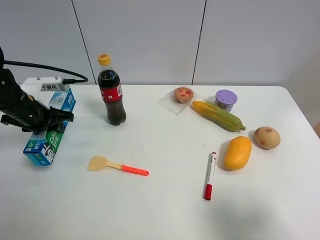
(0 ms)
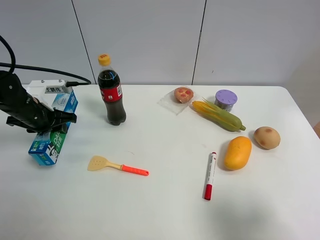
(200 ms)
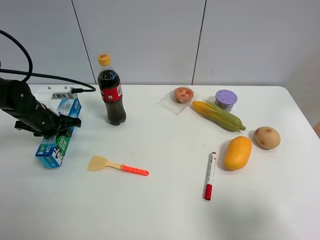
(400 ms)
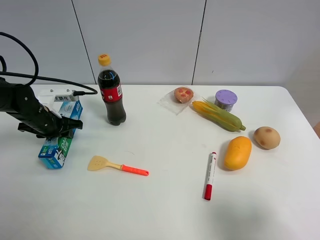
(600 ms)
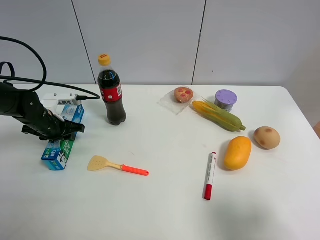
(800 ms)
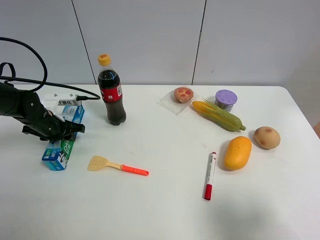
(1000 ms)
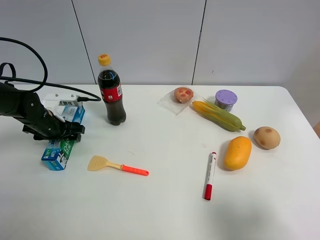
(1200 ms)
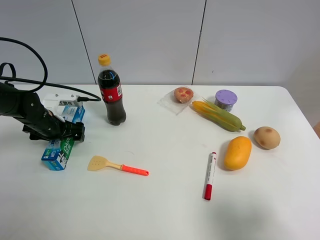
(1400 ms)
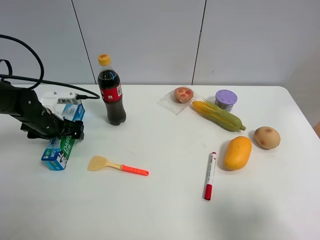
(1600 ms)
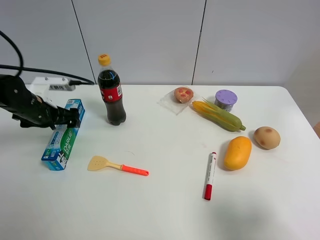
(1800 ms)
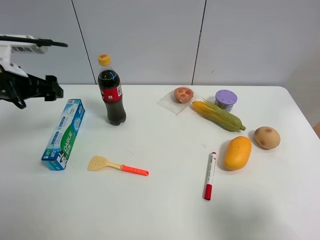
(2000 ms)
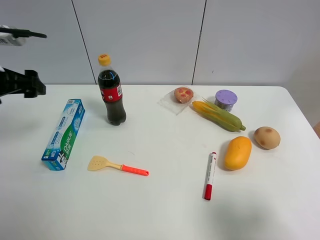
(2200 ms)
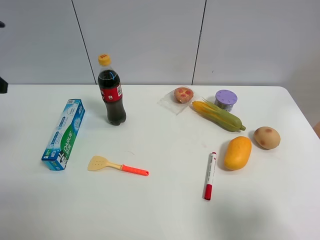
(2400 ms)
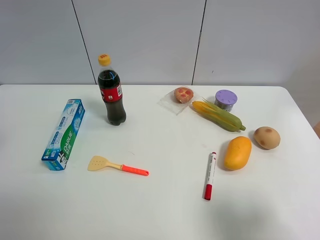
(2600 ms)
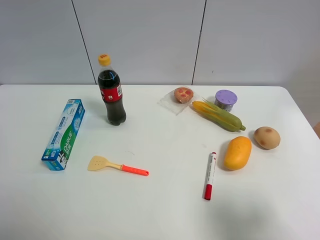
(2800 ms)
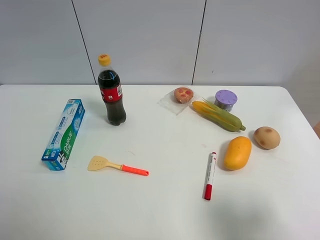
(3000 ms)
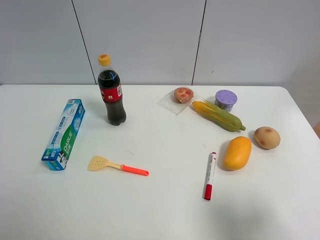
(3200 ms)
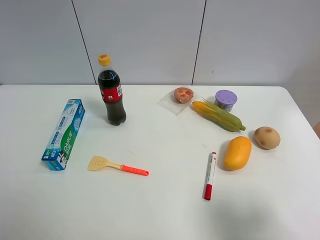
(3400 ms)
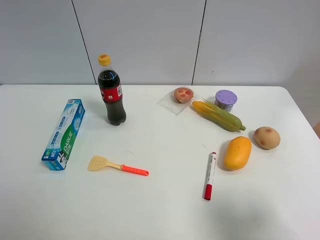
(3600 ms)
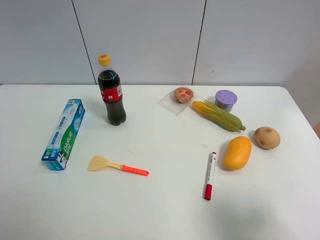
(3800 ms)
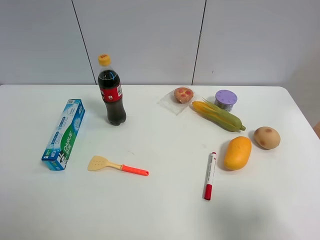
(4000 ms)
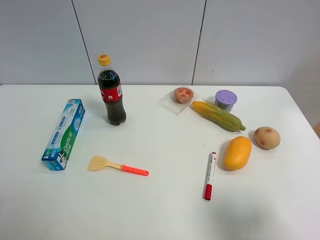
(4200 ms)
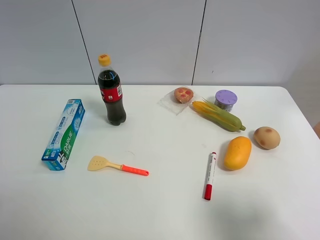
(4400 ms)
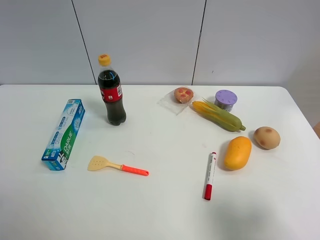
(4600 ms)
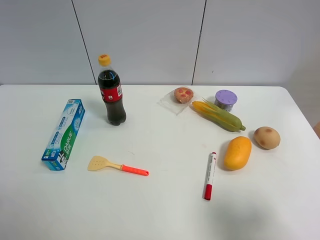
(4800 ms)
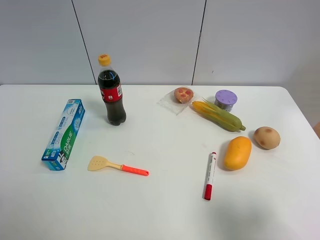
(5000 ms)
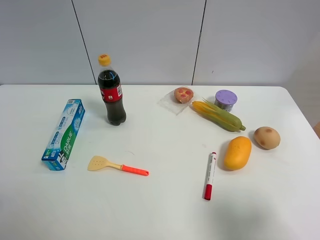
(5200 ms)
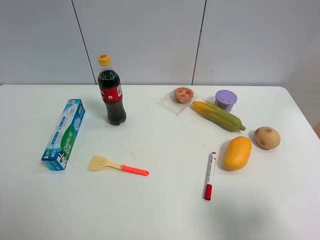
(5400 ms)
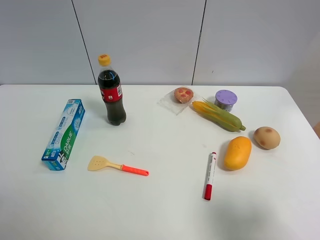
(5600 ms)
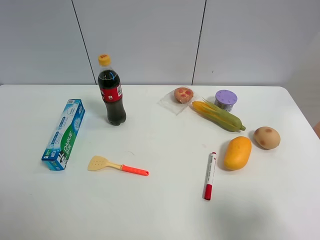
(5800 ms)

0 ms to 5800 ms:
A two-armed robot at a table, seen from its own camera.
Task of the whole recording: the gripper move the object.
0 ms to 1400 ms: The left gripper heads downward, covering approximately 5 cm, and opens up.
1400 ms to 2800 ms: The left gripper is displaced upward and backward by some 35 cm.
4400 ms to 5800 ms: Neither gripper changes place.

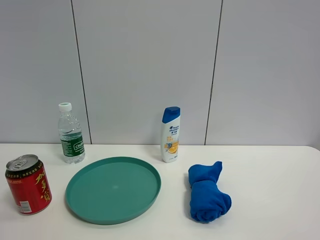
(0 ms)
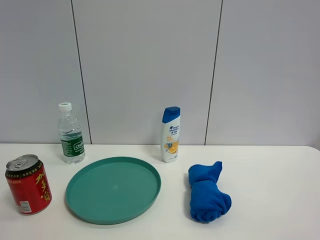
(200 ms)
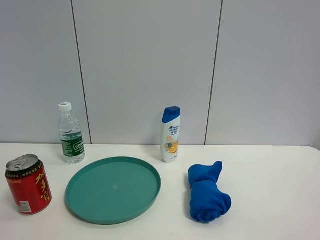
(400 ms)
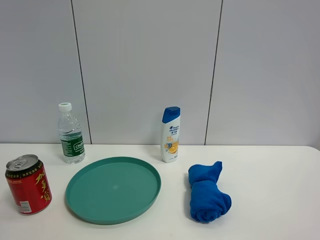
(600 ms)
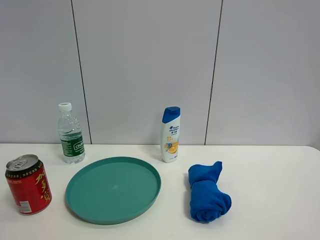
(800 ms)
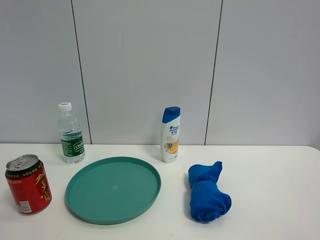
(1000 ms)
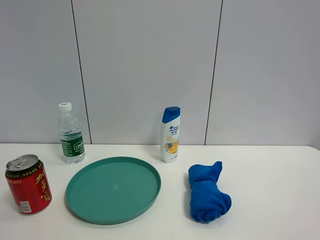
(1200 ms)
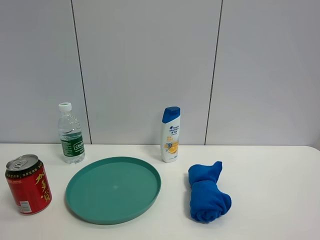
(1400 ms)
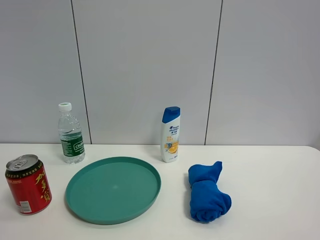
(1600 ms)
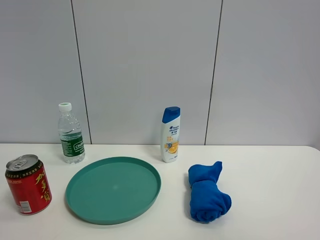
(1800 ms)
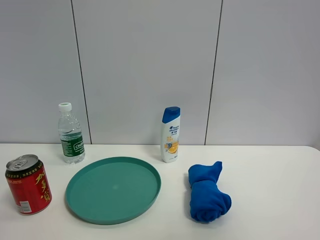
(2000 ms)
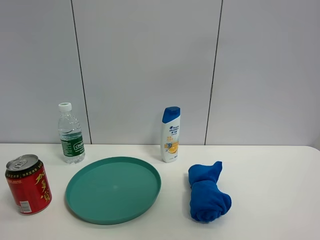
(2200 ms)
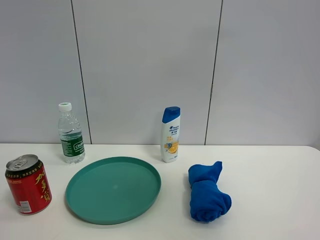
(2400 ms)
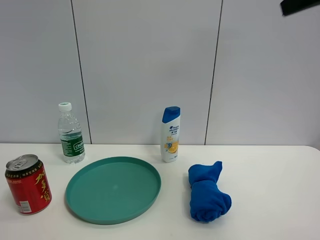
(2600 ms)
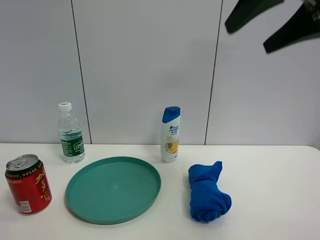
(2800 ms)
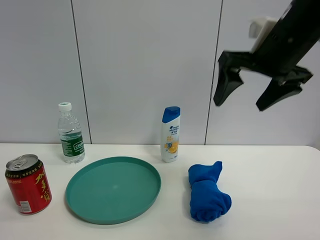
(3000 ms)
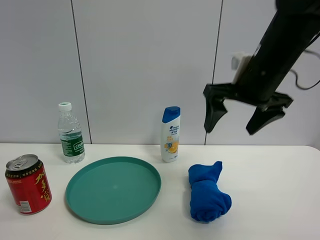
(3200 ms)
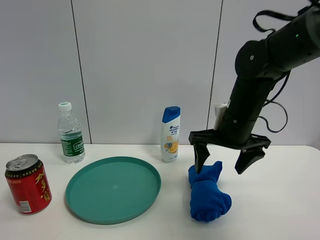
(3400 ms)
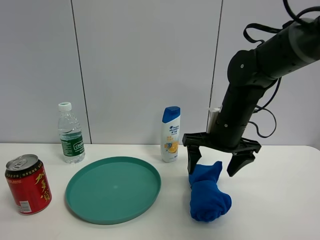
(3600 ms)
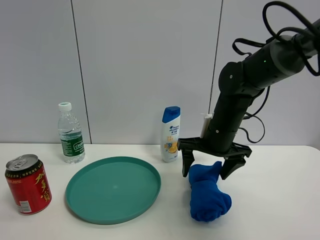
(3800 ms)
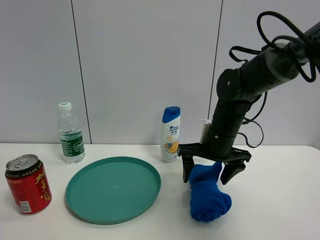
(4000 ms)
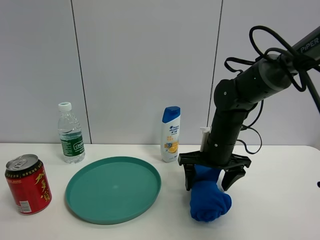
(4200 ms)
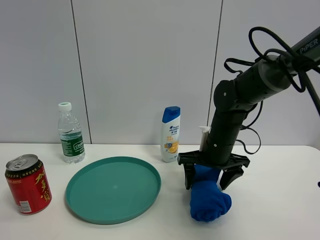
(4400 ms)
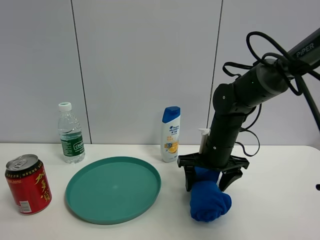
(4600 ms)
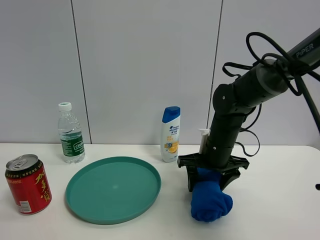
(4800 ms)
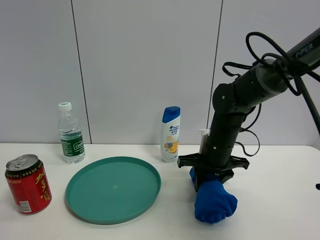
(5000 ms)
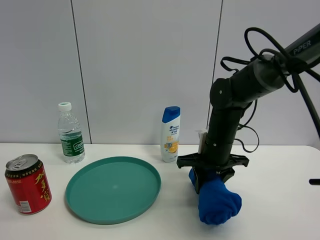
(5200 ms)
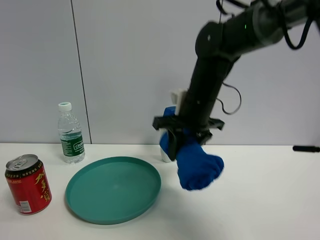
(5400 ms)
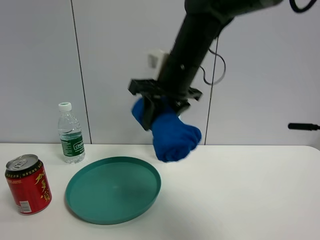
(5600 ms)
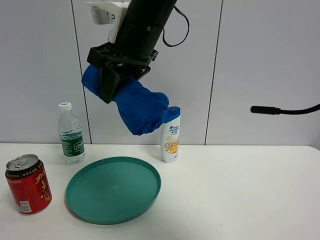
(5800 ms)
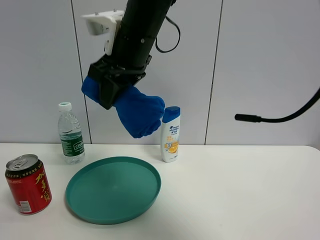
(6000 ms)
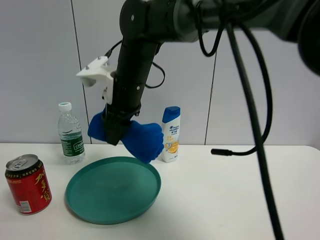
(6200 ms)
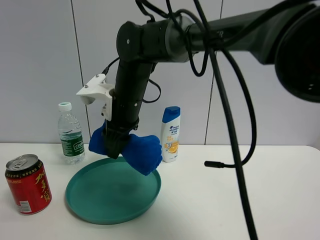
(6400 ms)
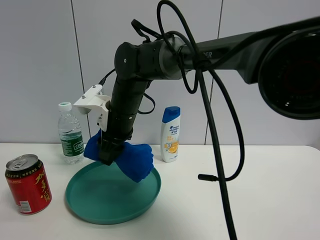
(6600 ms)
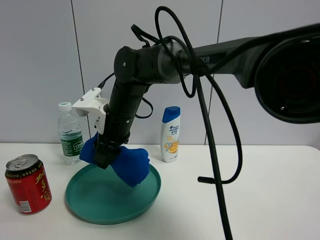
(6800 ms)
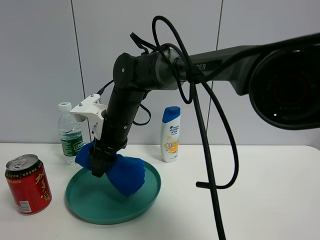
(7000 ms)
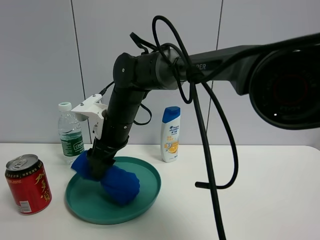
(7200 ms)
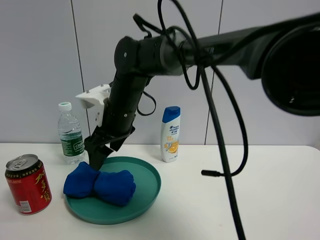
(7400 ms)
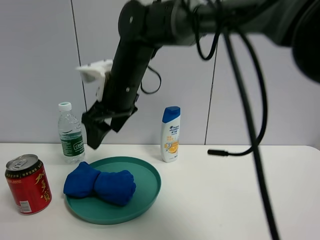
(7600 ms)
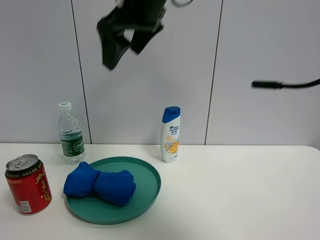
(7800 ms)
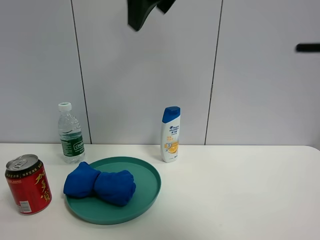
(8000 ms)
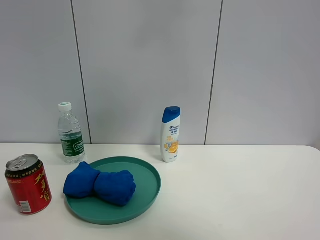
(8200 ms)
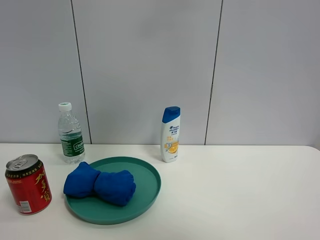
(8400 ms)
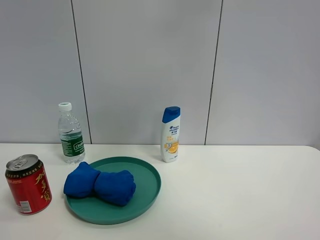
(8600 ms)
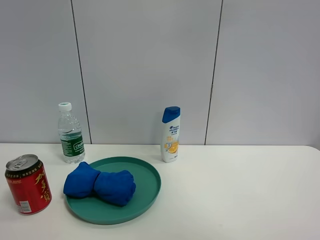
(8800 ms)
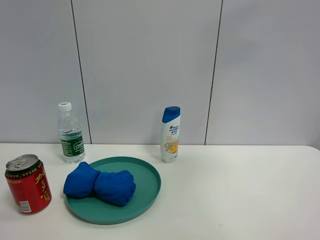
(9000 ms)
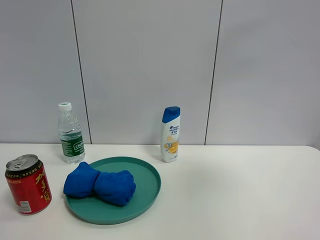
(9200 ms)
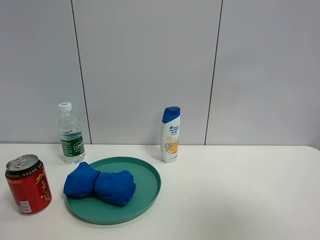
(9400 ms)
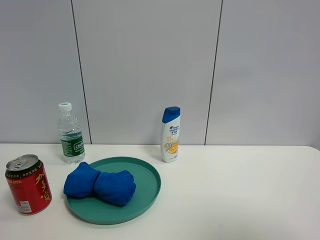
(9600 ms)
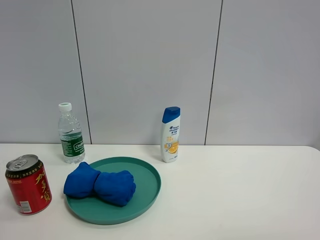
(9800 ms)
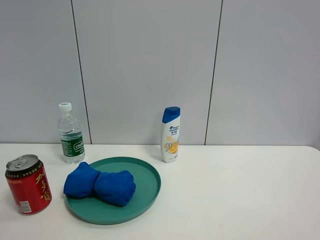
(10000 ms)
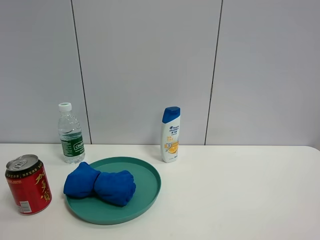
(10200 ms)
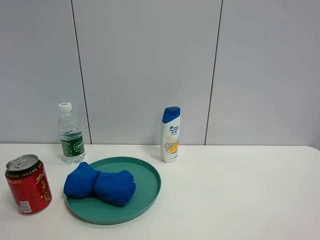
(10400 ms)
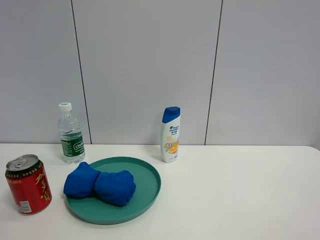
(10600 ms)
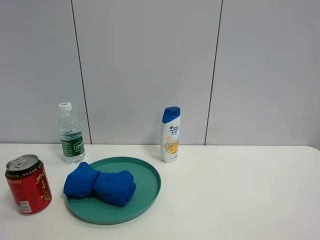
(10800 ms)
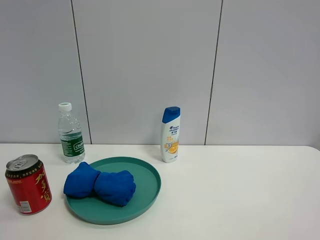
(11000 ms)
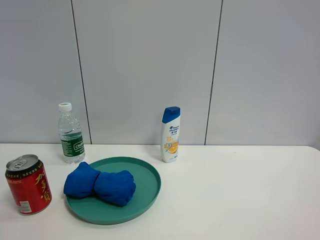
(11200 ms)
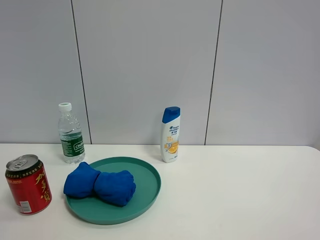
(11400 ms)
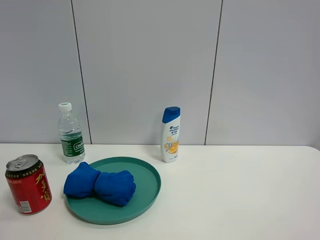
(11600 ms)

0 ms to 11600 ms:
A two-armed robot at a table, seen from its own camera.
Task of the whole recording: the gripper move the object.
Step, 0 ms to 4800 ms: Grasp the blue towel with the right gripper.
Step, 5000 ms to 7200 ms: Place the blue towel on the table with the right gripper.
1400 ms to 2800 ms: The right gripper moves forward, roughly 25 cm, and opens its fingers.
2800 ms to 4400 ms: The right gripper goes roughly 30 cm downward and forward.
4400 ms to 5800 ms: The right gripper shifts about 25 cm upward and to the left, and closes up.
5800 ms to 7200 ms: The right gripper shifts roughly 15 cm downward, and opens its fingers.
7200 ms to 8800 ms: The right gripper travels upward and to the right by roughly 50 cm.
8800 ms to 10200 ms: The right gripper moves backward and downward, approximately 35 cm.

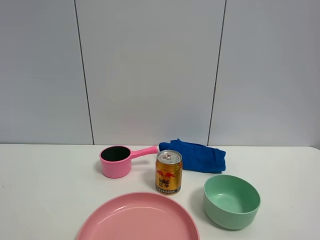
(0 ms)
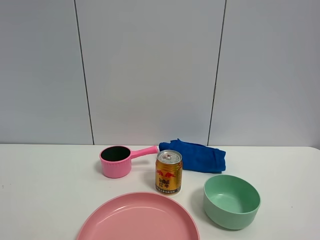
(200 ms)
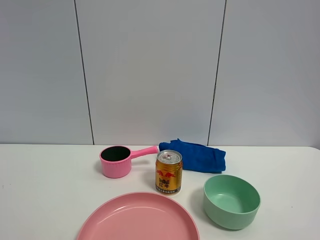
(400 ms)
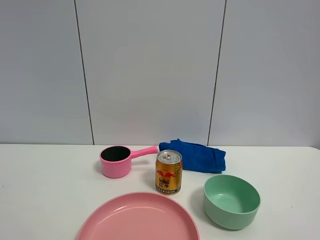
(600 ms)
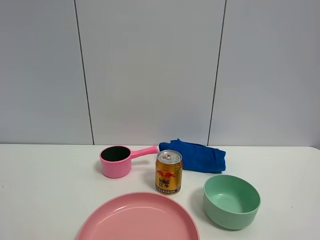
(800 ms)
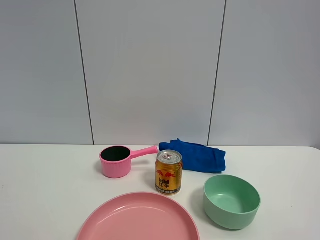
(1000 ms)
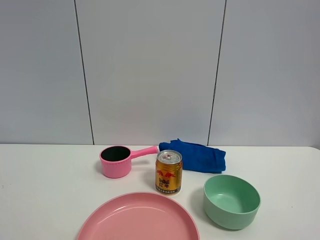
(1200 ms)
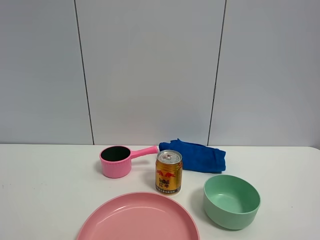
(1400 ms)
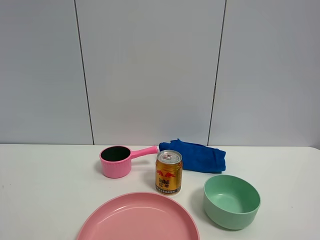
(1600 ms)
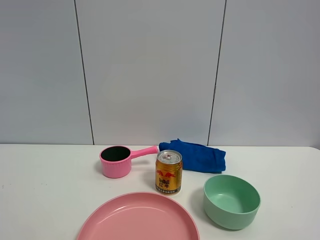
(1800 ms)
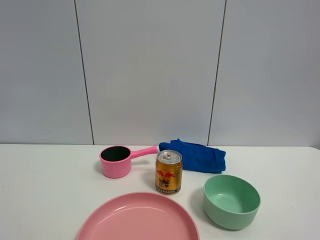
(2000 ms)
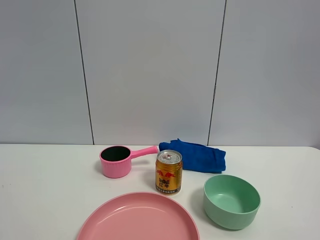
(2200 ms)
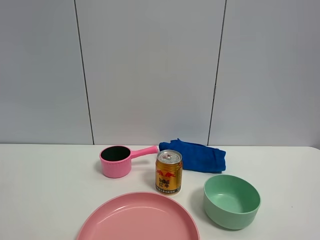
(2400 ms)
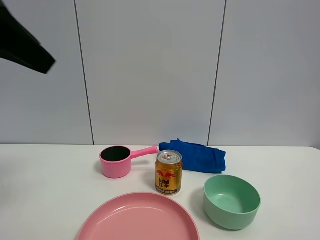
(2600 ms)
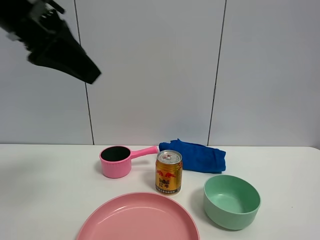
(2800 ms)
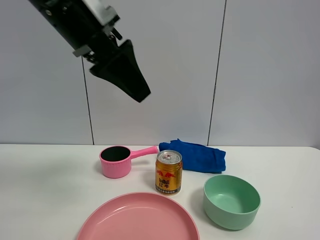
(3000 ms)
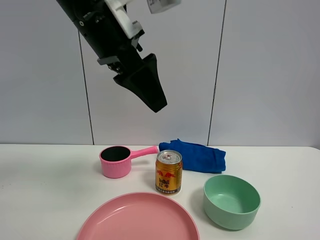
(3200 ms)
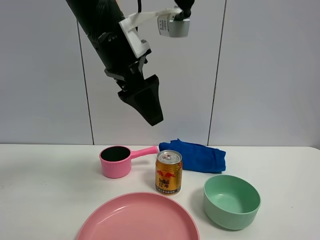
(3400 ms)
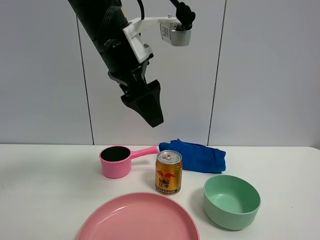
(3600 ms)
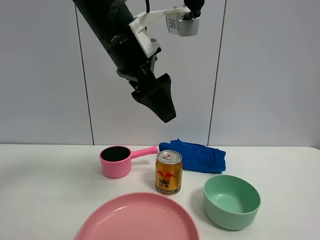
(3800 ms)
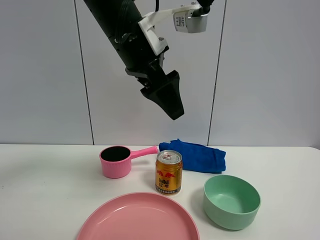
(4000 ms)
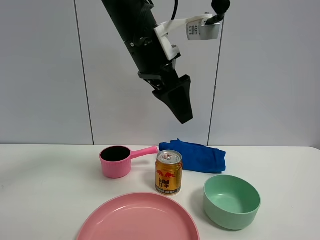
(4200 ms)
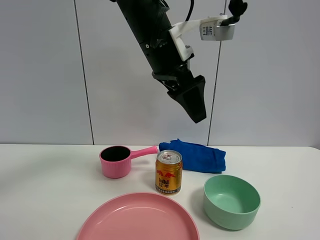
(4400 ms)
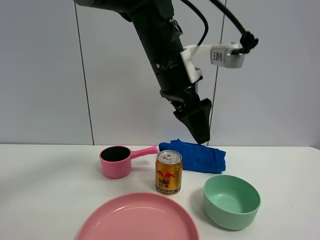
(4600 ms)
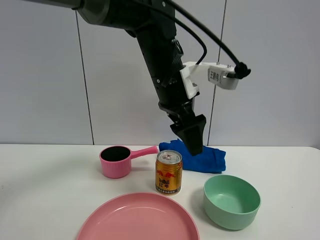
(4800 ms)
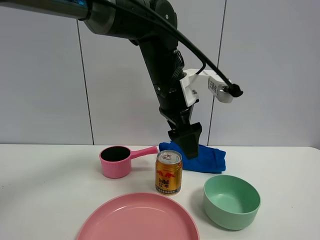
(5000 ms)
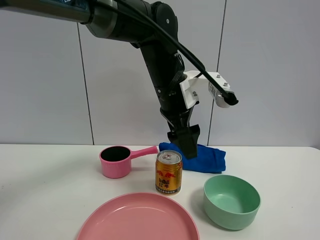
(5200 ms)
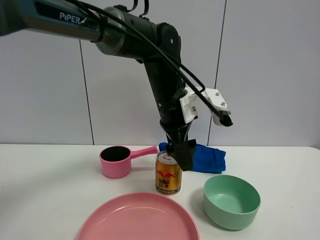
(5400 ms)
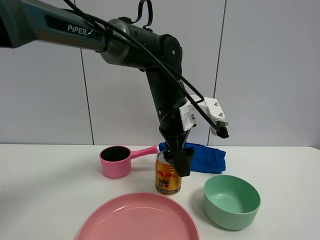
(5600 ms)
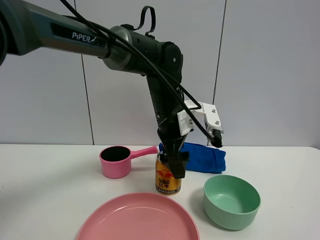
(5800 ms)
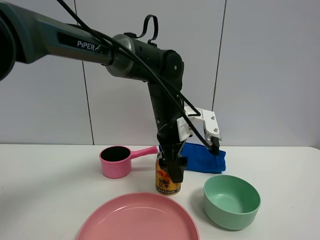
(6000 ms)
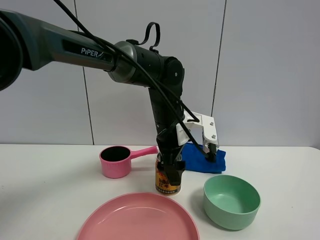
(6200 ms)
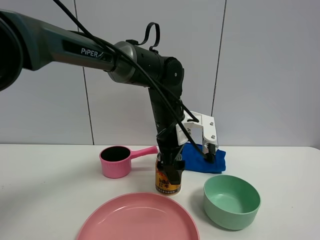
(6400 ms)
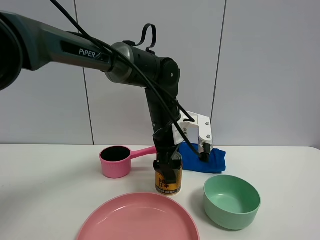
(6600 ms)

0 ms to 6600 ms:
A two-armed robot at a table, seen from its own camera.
Task of the whole recording: the gripper move the object.
1600 ms to 3200 ms: The left gripper travels forward and to the right by about 40 cm.
3200 ms to 5000 ms: The left gripper is displaced downward, to the right and forward by some 15 cm.
5000 ms to 6600 ms: The left gripper shifts some 10 cm downward.
